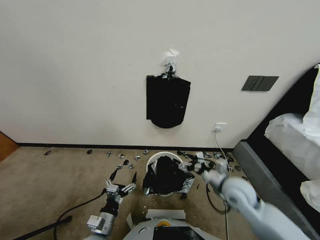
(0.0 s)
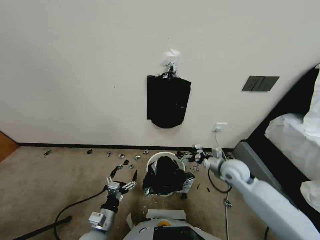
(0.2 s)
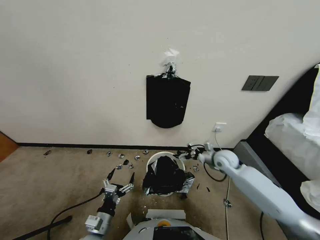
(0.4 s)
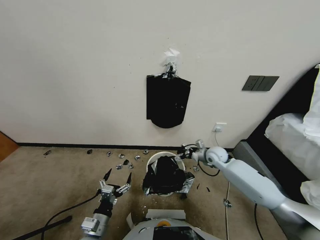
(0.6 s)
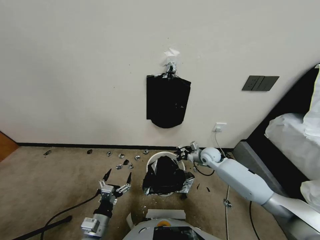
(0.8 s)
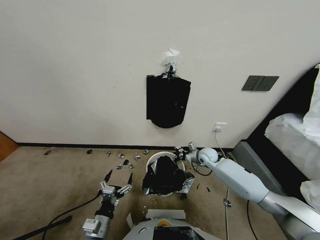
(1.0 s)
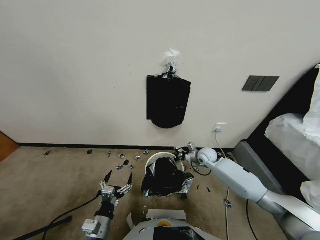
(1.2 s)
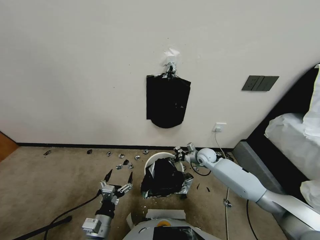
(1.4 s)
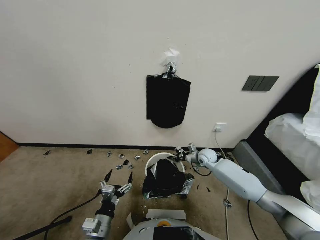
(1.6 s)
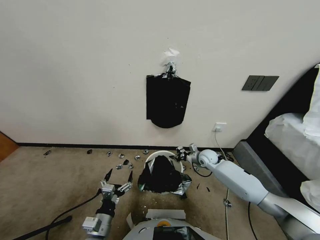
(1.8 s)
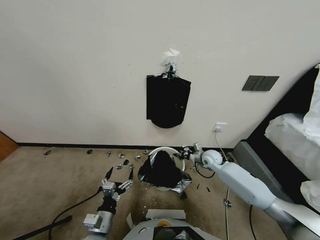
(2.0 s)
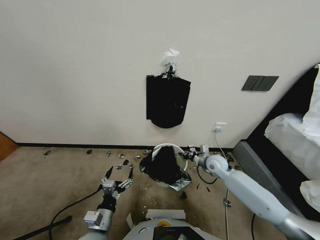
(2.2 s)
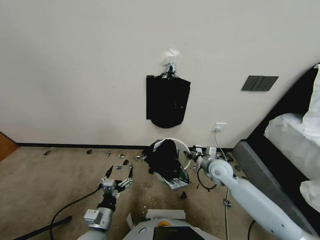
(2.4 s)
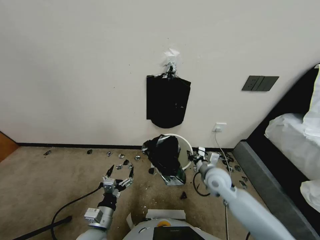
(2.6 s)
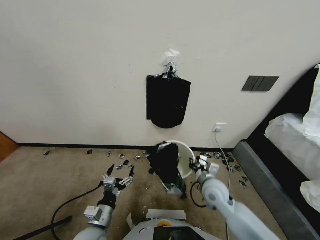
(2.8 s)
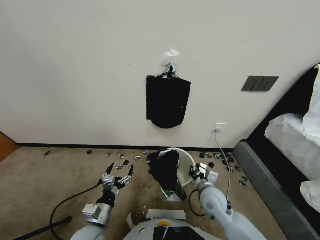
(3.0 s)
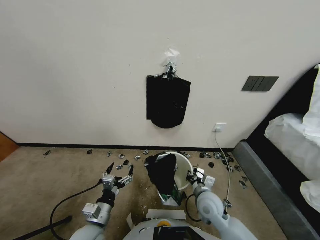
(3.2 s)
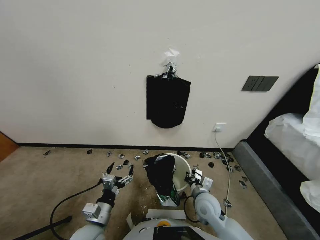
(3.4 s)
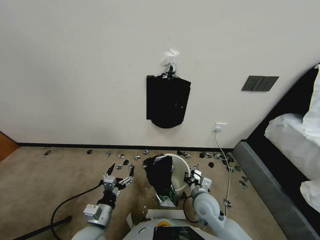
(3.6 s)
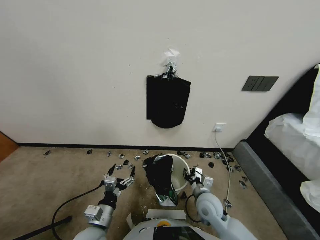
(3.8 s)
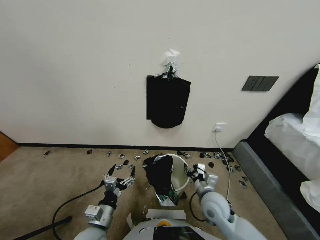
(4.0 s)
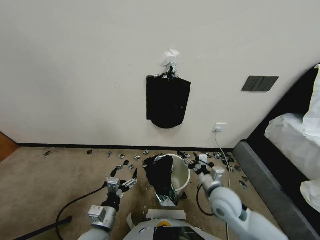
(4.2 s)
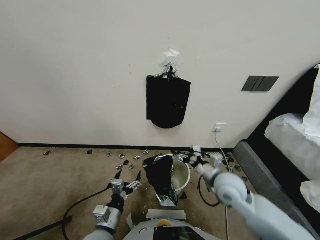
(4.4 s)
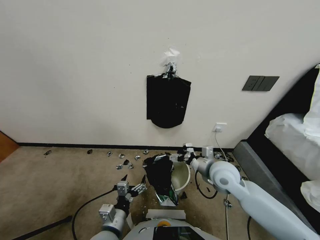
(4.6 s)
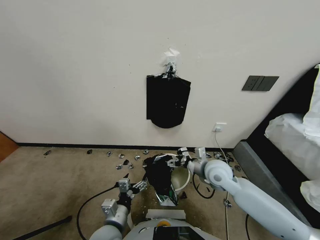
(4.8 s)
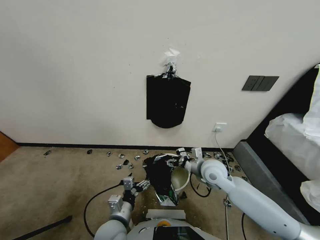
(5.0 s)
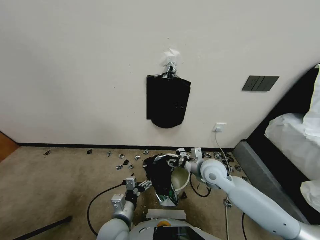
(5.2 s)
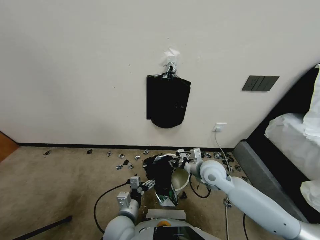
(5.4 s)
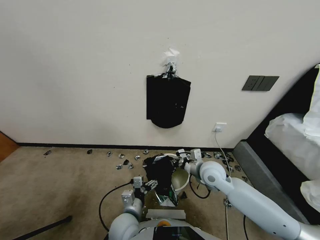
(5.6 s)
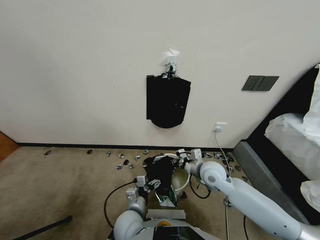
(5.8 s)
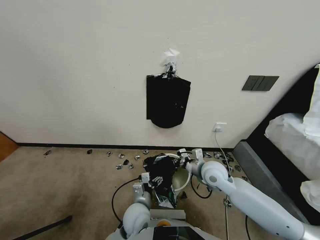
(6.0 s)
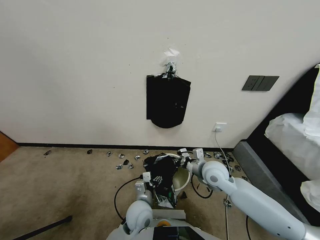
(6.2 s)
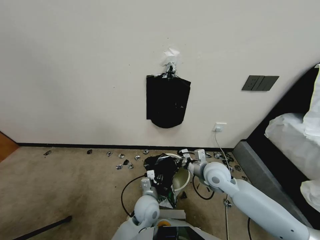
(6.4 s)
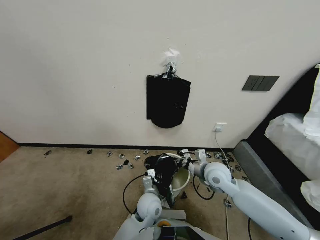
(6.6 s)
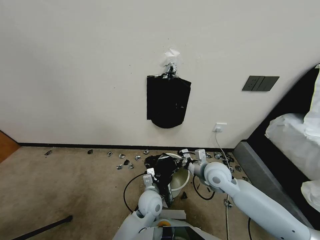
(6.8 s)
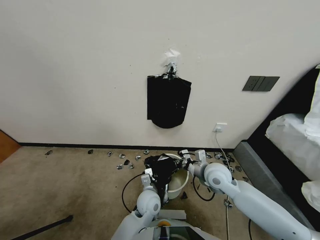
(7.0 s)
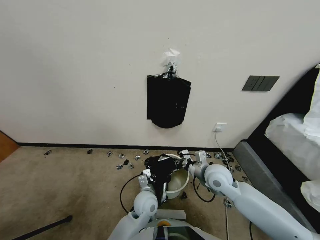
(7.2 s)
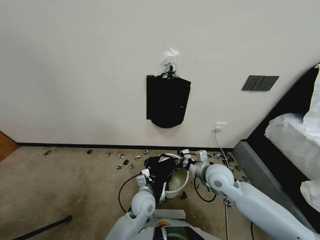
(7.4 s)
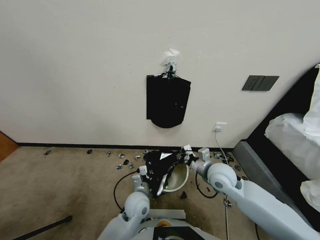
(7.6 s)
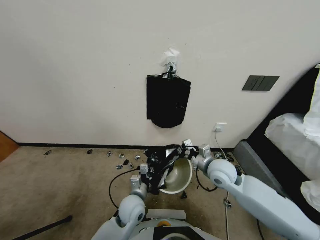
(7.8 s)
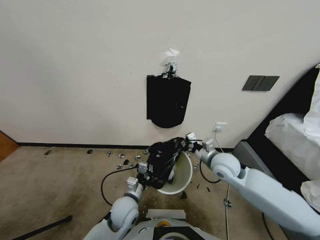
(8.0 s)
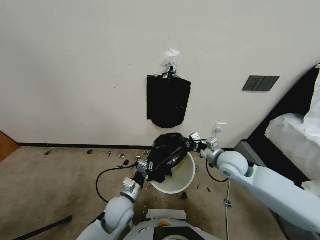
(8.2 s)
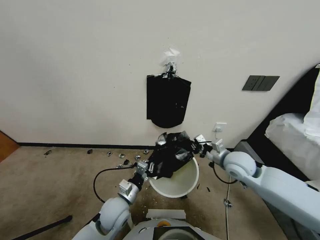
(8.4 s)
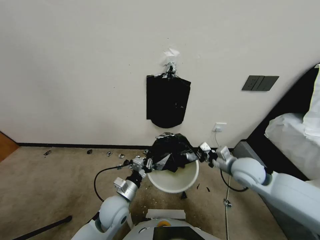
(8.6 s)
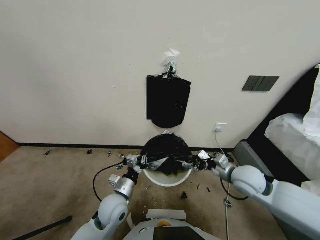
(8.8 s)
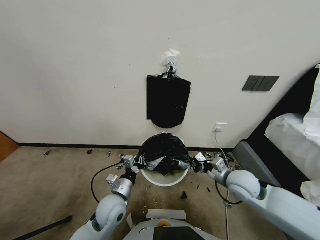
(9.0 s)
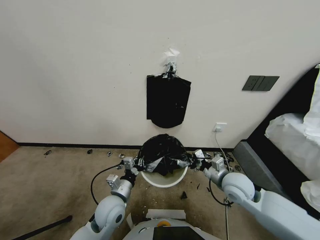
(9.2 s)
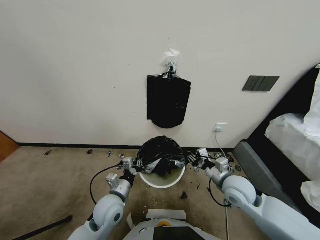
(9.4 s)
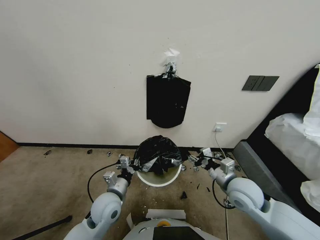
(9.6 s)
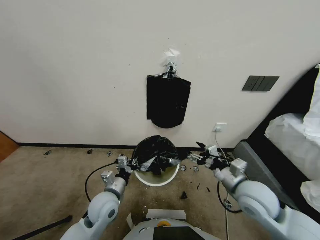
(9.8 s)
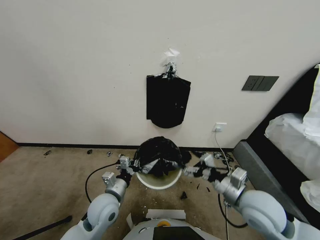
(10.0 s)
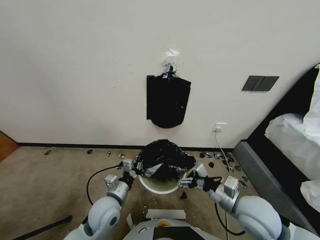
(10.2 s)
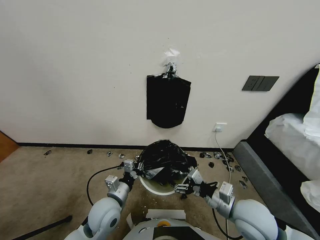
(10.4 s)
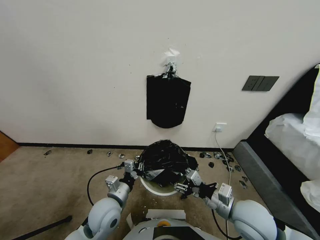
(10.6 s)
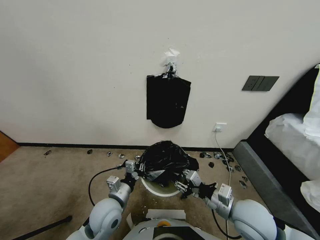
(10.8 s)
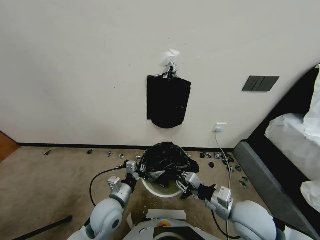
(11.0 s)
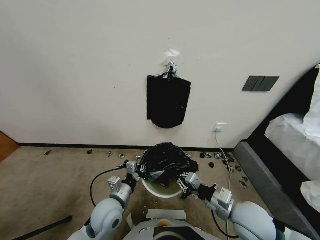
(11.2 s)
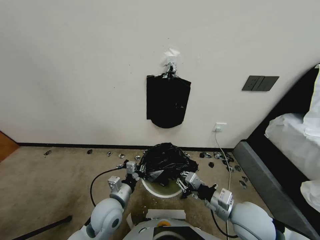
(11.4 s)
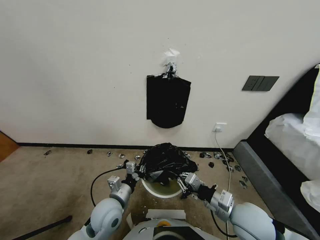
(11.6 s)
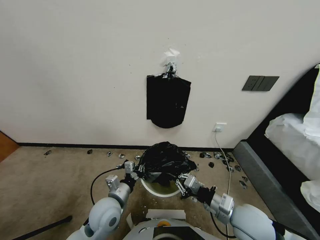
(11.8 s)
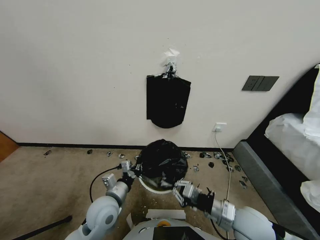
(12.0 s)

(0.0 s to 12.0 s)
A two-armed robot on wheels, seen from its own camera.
Task of the whole recording: Place a trash bag onto the trash bin.
0.0 s - 1.6 s: The right gripper heads forward and downward, covering roughly 15 cm, and closes its fingers.
1.6 s - 3.0 s: The right gripper goes some 20 cm backward.
3.0 s - 4.4 s: The left gripper goes approximately 5 cm to the right, while the right gripper travels upward and forward by some 15 cm, and opens up.
4.4 s - 6.0 s: The left gripper is displaced to the right and forward by some 15 cm; the right gripper closes up.
6.0 s - 7.6 s: The left gripper closes up.
7.6 s - 9.0 s: The right gripper moves to the right, about 5 cm. The left gripper goes about 5 cm to the left.
9.0 s - 10.4 s: The right gripper goes some 10 cm backward, and opens up.
10.4 s - 12.0 s: The right gripper closes up.

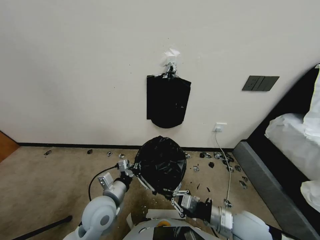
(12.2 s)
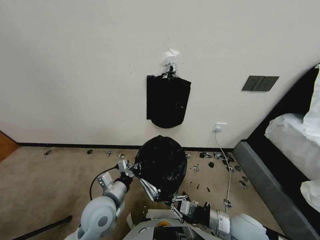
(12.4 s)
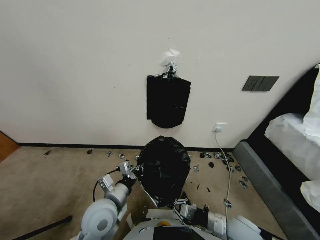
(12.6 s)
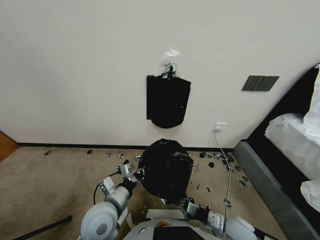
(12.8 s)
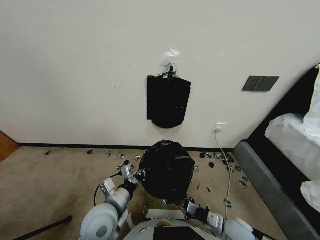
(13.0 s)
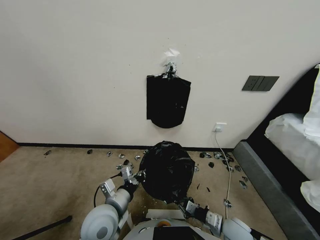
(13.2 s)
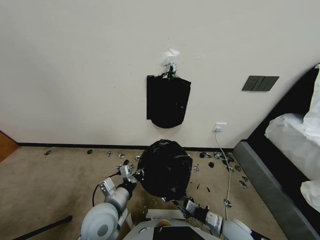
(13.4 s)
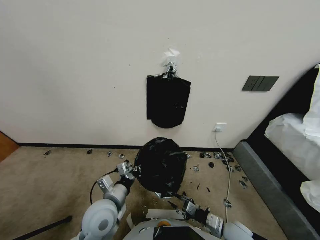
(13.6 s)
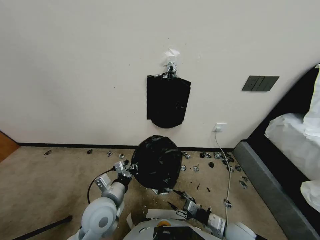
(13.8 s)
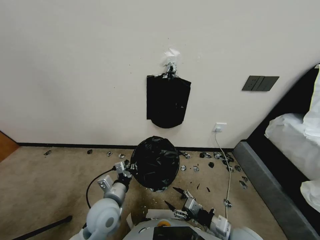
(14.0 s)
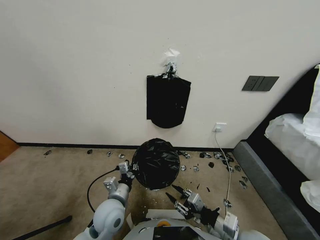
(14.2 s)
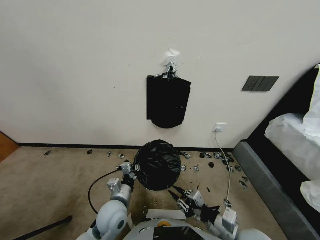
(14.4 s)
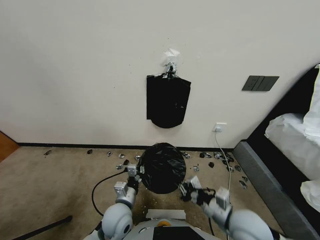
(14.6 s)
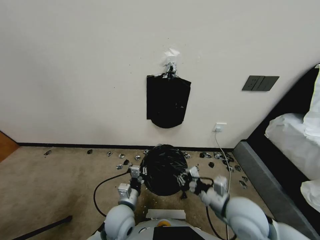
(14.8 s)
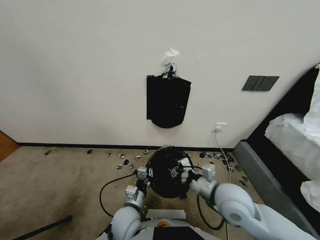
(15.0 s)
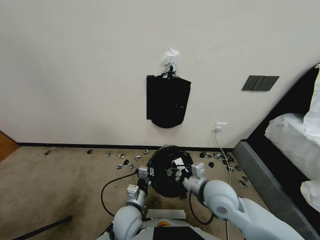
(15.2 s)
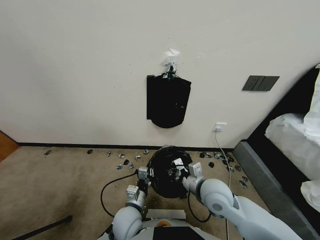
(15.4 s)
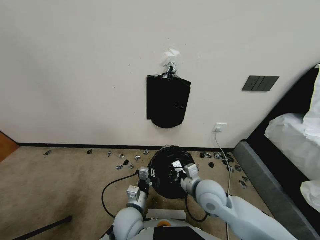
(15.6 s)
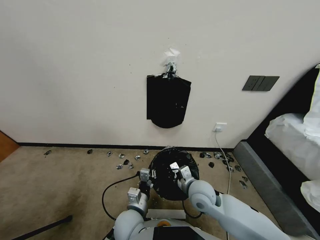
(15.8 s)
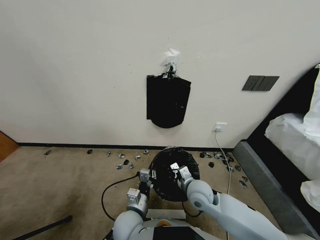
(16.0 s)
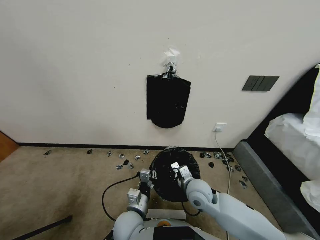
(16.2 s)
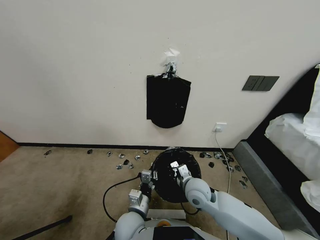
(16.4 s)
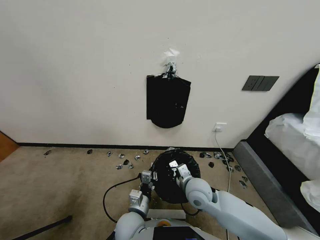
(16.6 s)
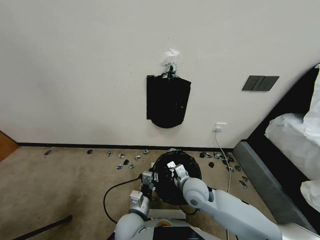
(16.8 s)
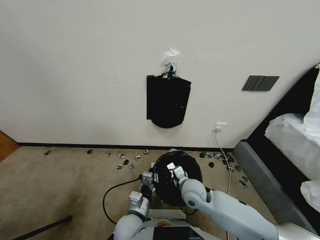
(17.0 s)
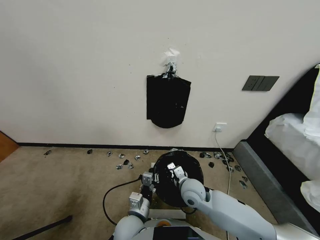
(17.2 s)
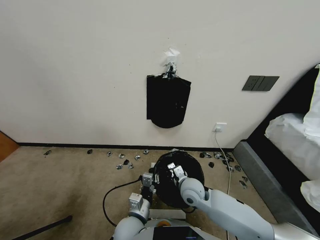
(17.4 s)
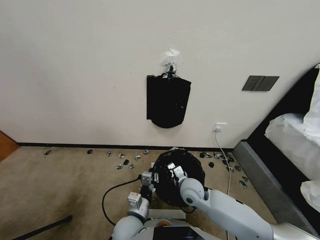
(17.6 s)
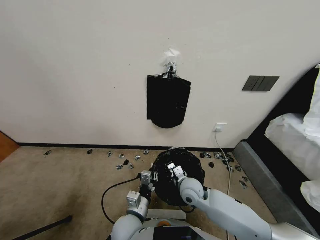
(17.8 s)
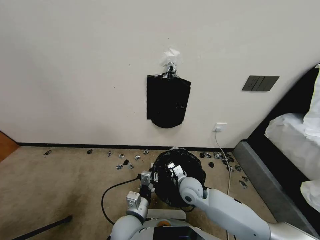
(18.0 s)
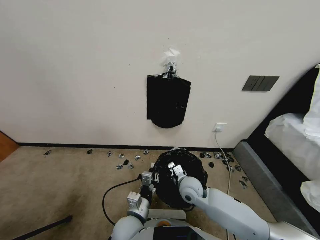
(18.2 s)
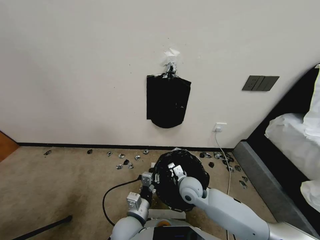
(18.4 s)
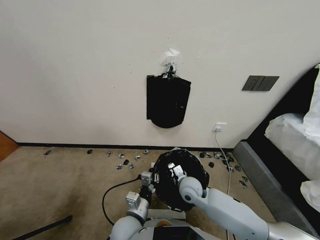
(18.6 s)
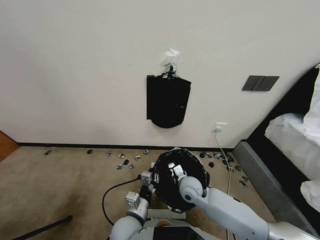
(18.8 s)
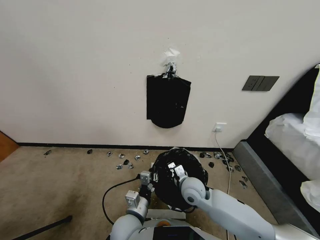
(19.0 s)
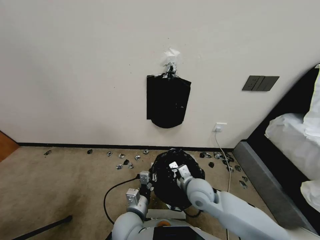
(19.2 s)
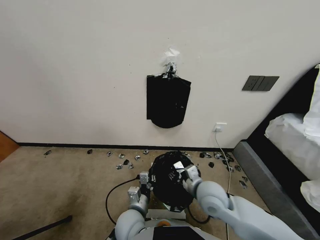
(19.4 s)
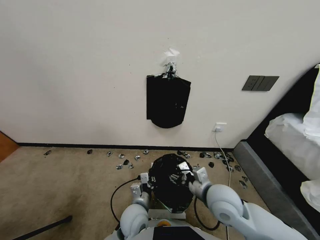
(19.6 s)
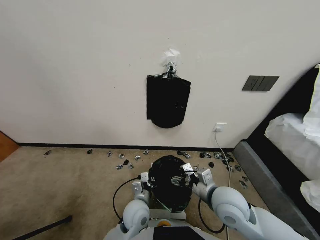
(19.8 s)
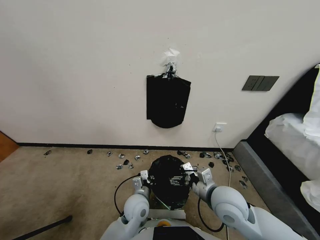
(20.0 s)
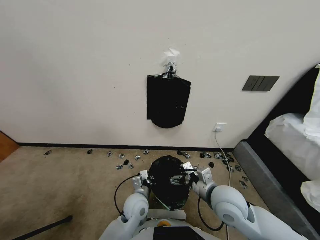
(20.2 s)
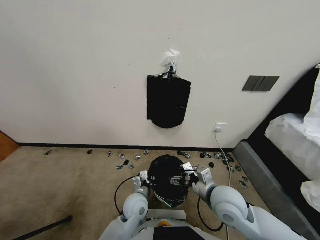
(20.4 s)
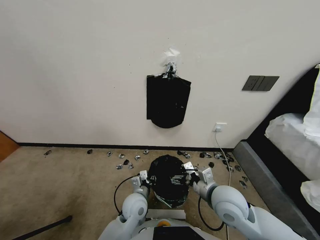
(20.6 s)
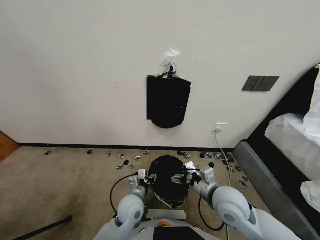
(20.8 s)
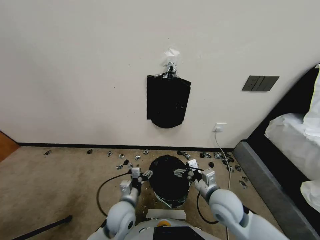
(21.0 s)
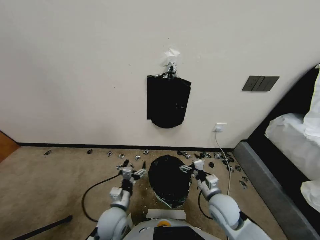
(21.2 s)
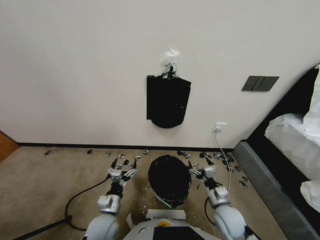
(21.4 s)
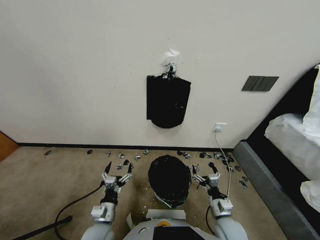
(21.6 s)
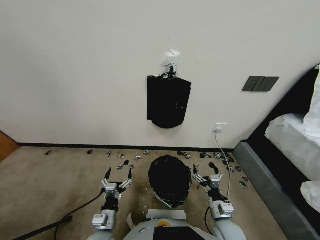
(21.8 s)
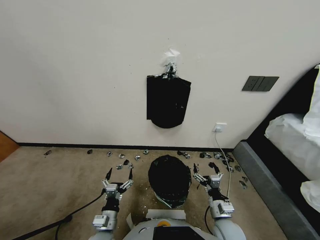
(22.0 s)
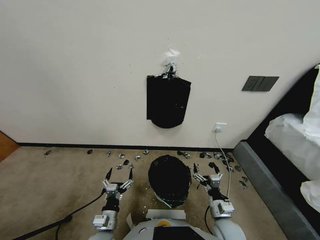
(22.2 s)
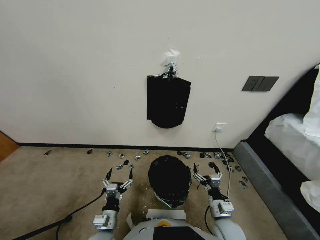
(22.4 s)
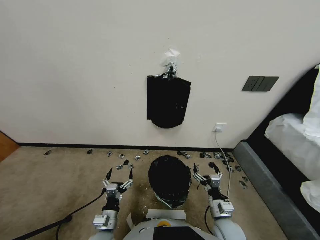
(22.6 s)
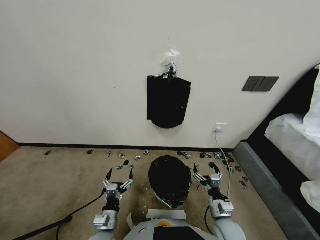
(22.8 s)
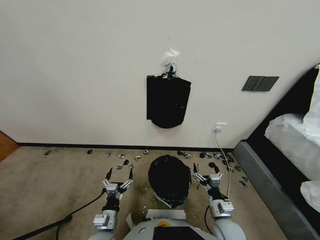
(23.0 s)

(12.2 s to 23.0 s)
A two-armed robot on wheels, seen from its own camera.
Task of the whole recording: Place a trash bag onto the trash bin.
12.2 s - 13.8 s: The right gripper moves downward, roughly 5 cm, and opens up.
13.8 s - 15.2 s: The left gripper travels to the right and downward by roughly 10 cm. The right gripper travels forward, upward and to the left by approximately 20 cm, and closes.
15.2 s - 16.8 s: The right gripper is displaced downward by about 5 cm.
16.8 s - 18.4 s: The grippers make only small movements.
18.4 s - 20.0 s: The right gripper heads upward, backward and to the right, covering some 15 cm, and opens up. The left gripper moves forward and downward, some 10 cm.
20.0 s - 21.4 s: The right gripper shifts about 15 cm downward, while the left gripper goes some 15 cm to the left and backward, and opens up.
21.4 s - 23.0 s: The grippers stay close to where they were, moving slightly.
